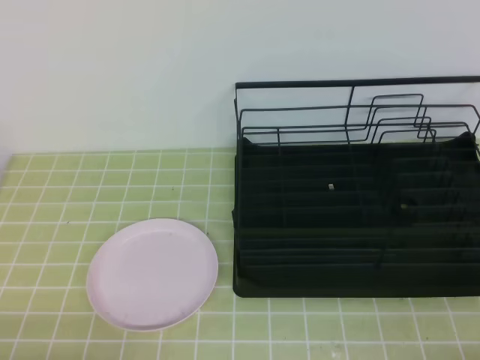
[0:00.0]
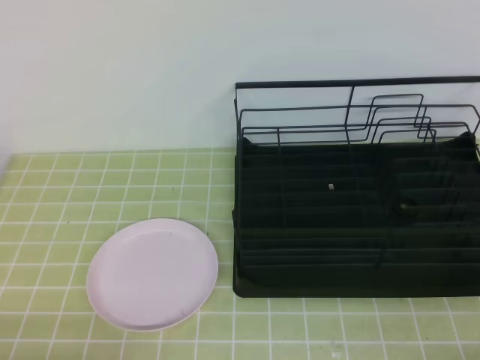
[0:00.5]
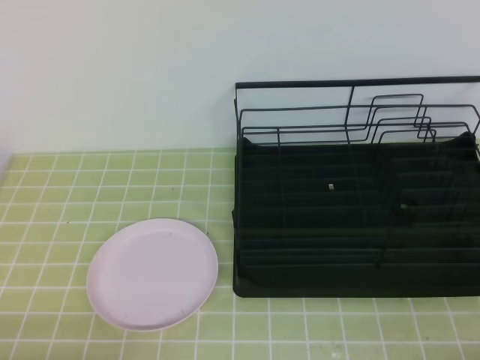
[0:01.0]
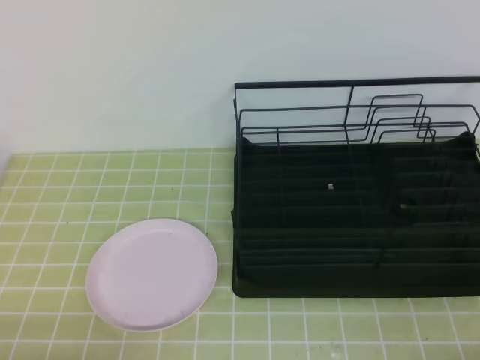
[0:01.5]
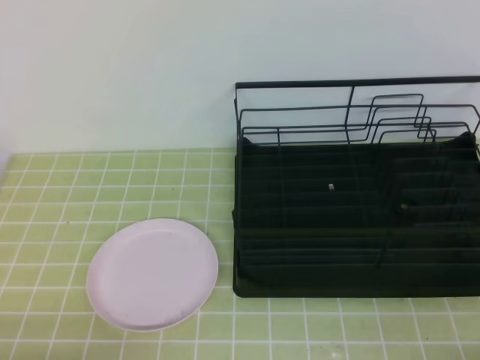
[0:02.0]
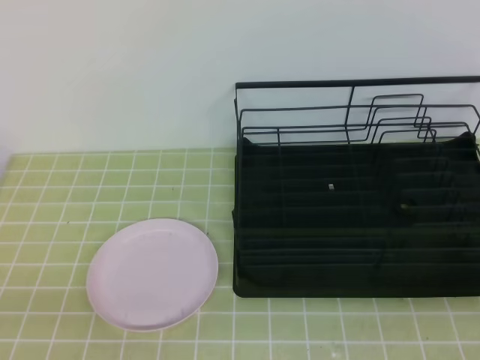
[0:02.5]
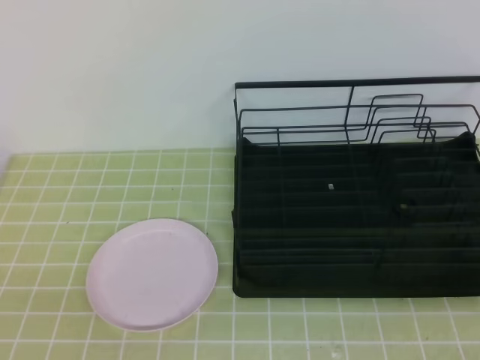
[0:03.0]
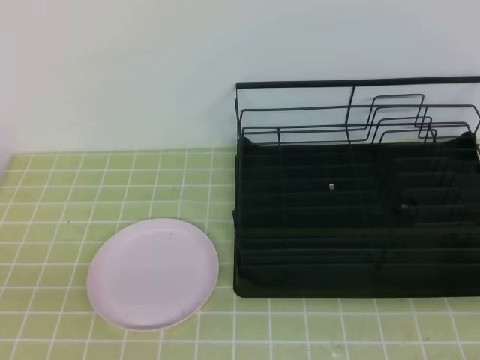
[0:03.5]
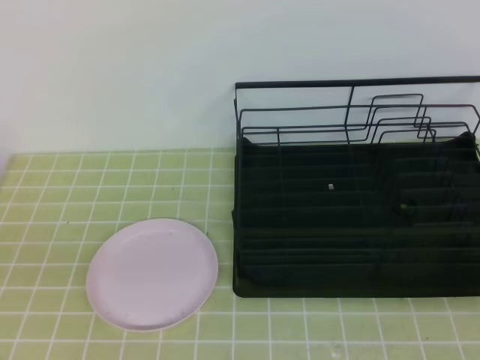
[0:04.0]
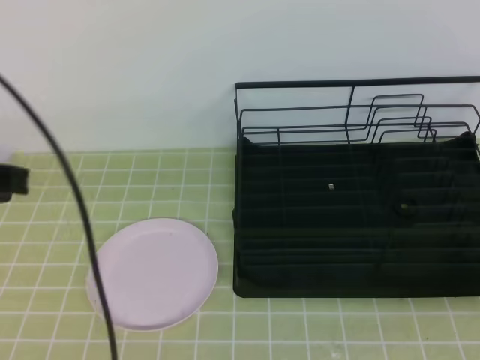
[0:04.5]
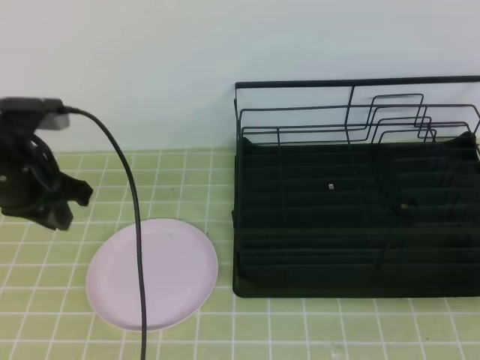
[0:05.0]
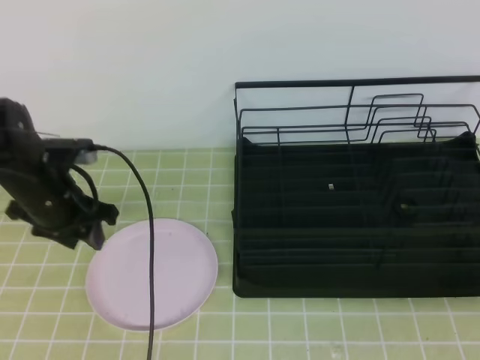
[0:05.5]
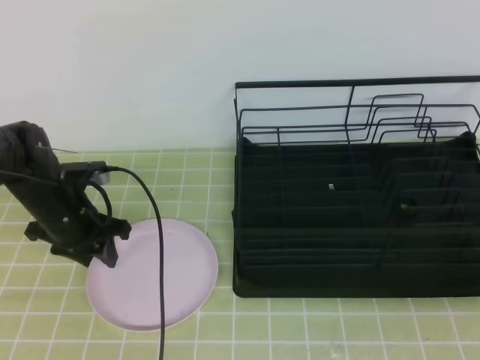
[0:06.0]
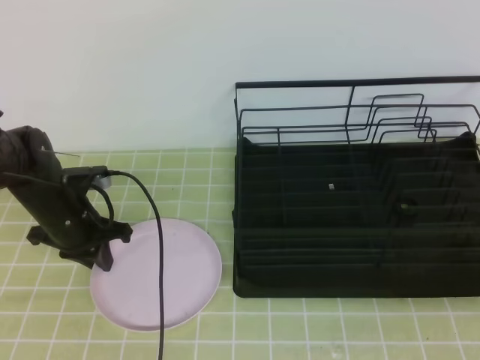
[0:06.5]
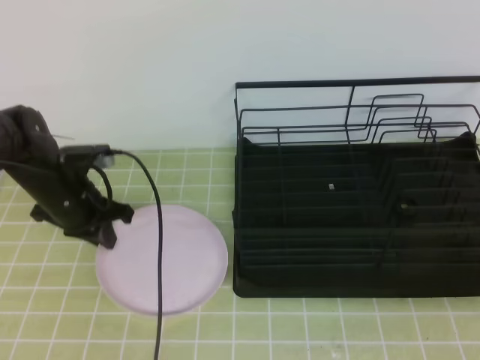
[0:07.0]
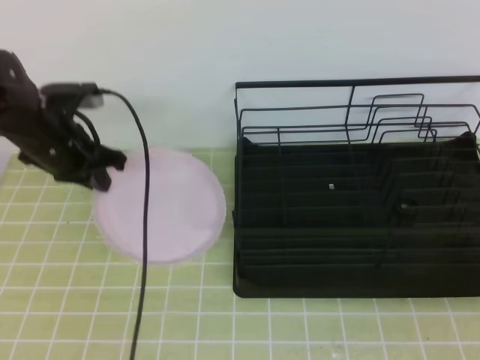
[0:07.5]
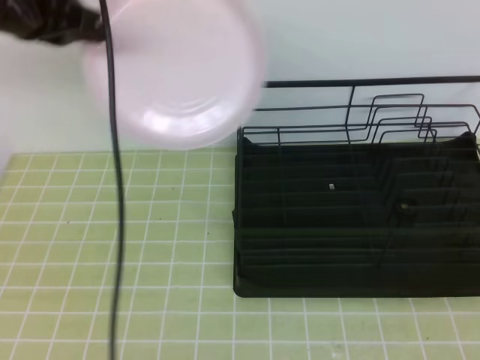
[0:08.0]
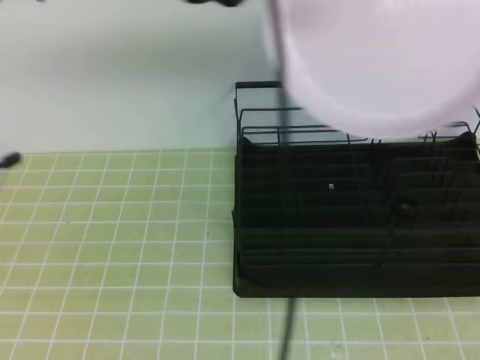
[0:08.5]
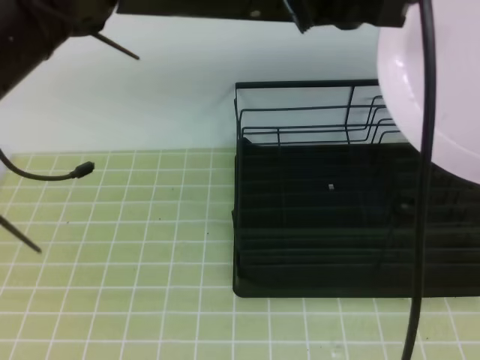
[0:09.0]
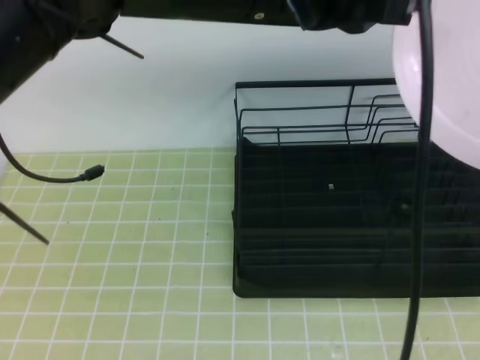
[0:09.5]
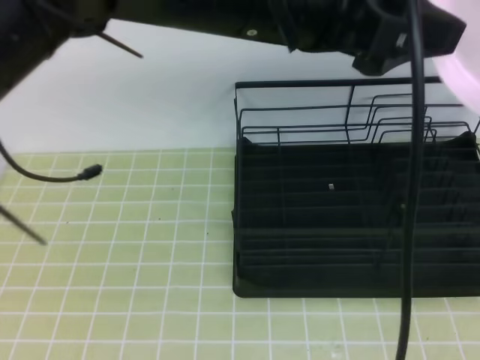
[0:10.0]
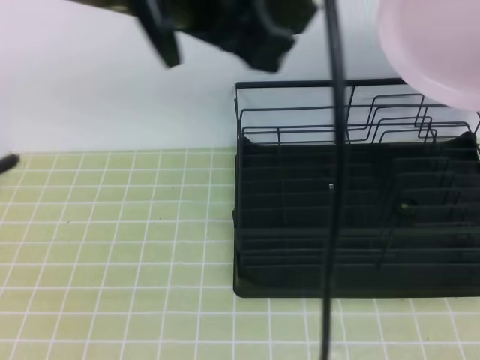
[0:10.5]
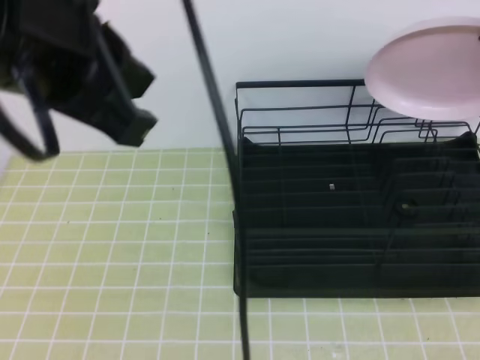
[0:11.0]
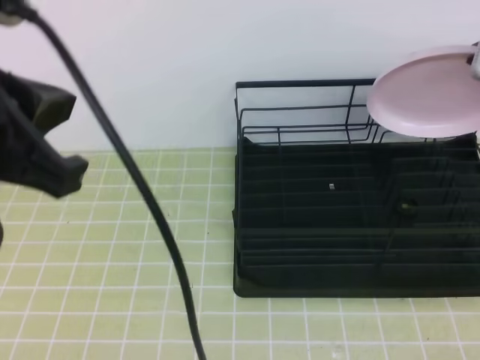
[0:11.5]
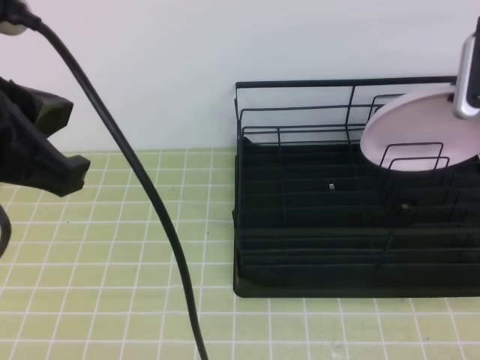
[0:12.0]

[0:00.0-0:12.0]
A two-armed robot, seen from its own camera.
0:04.0 to 0:06.0: The left gripper goes approximately 35 cm forward and downward, and opens up.
0:06.0 to 0:08.0: The left gripper goes approximately 25 cm upward, and closes.
0:08.0 to 0:10.0: The right gripper goes about 10 cm upward, and opens, then closes once more; the left gripper heads to the right and backward, covering some 20 cm, and opens.
0:10.0 to 0:12.0: The left gripper goes about 20 cm to the left and backward, and closes its fingers, while the right gripper moves forward, about 25 cm.

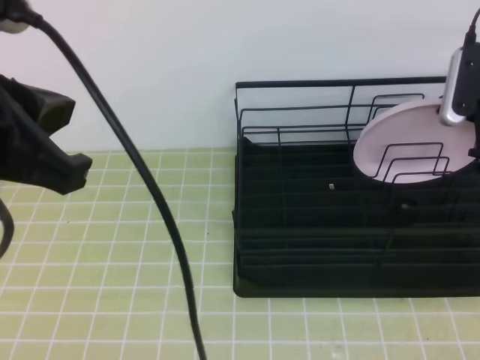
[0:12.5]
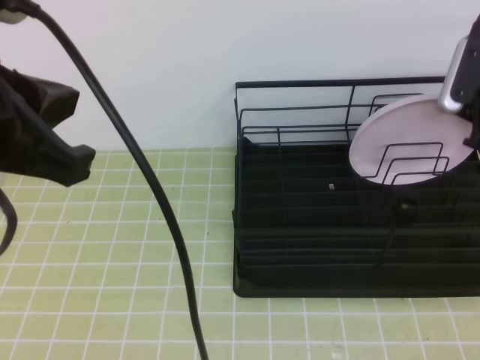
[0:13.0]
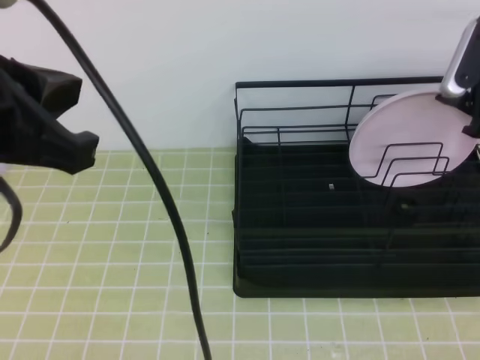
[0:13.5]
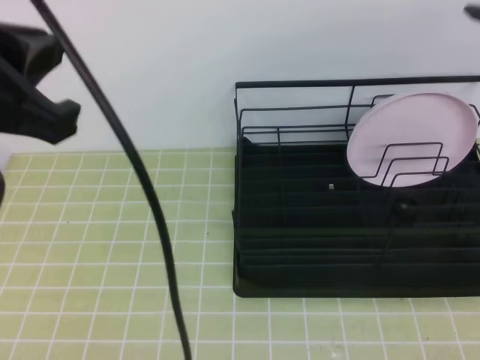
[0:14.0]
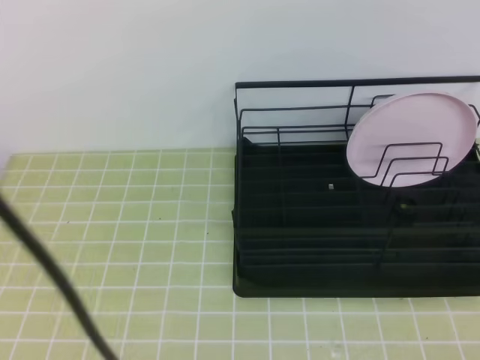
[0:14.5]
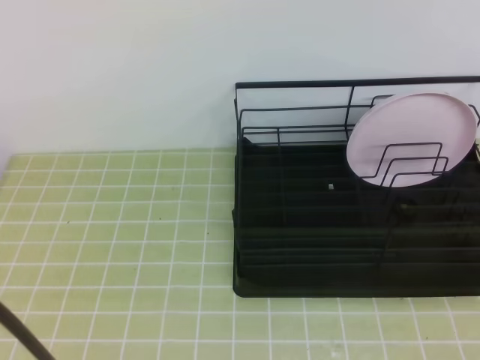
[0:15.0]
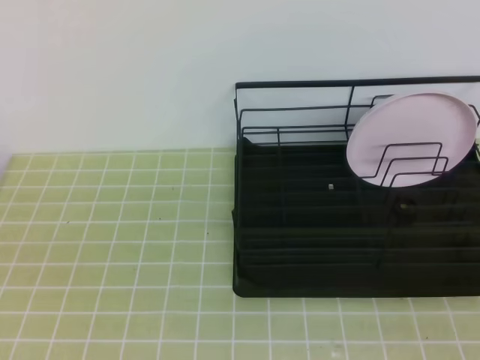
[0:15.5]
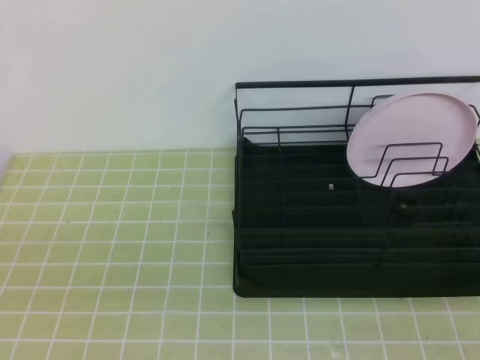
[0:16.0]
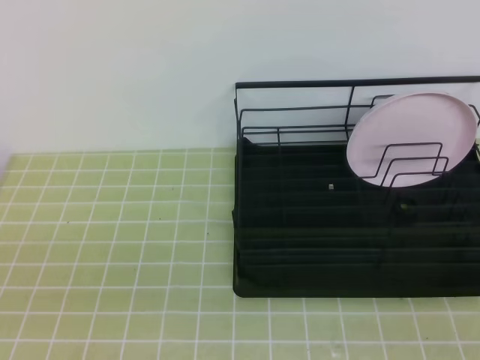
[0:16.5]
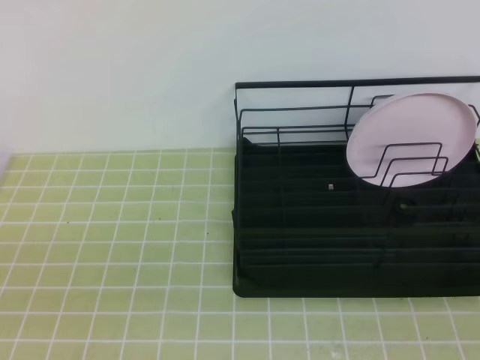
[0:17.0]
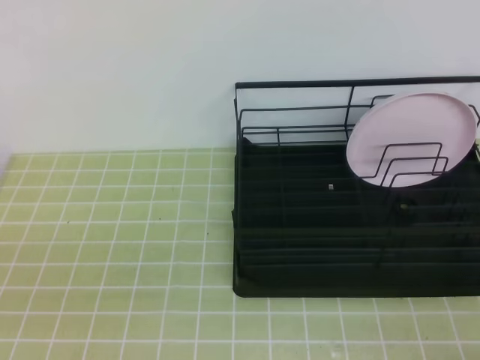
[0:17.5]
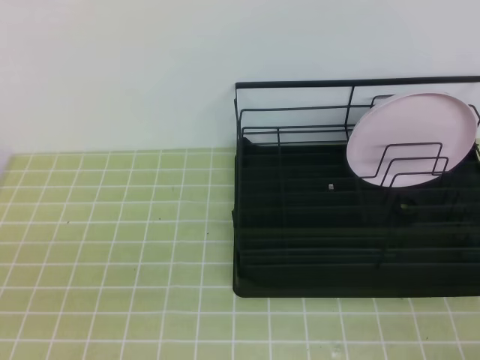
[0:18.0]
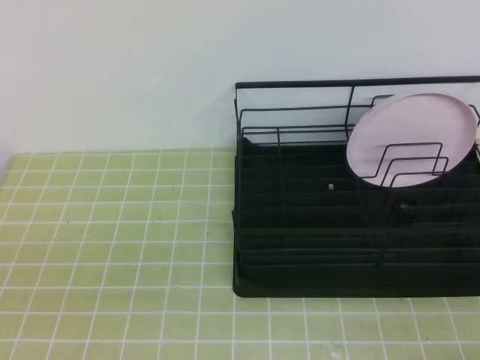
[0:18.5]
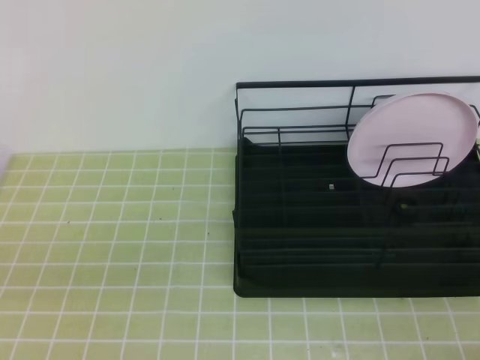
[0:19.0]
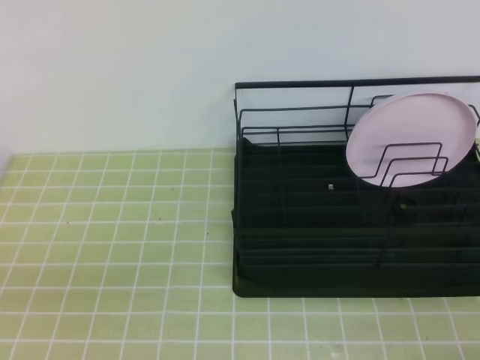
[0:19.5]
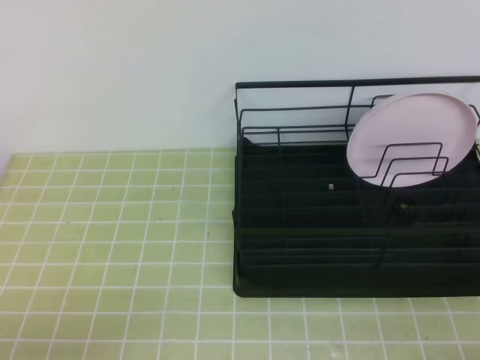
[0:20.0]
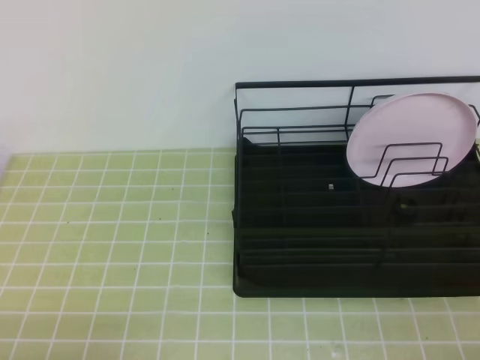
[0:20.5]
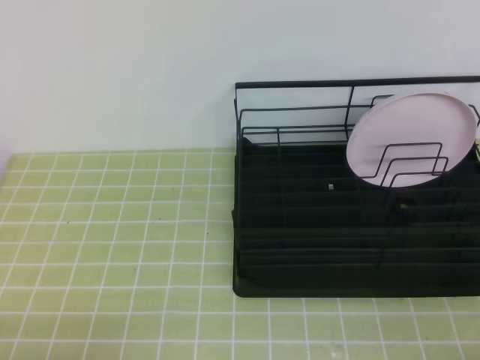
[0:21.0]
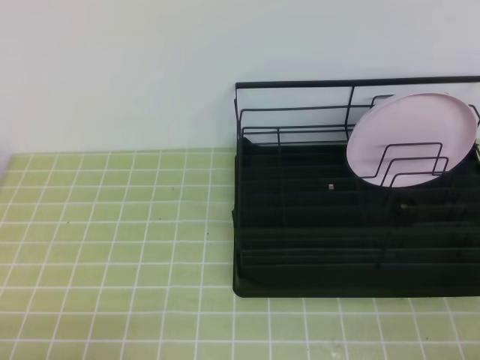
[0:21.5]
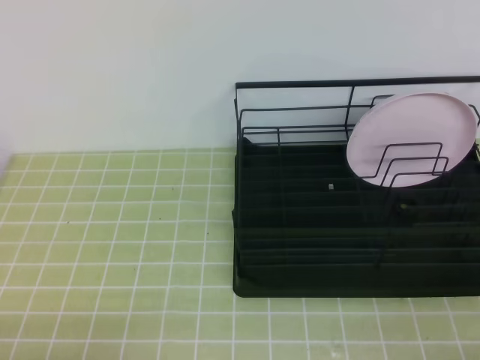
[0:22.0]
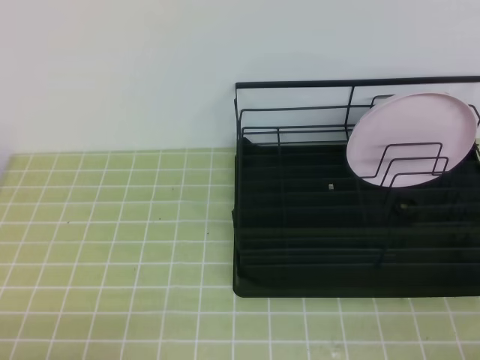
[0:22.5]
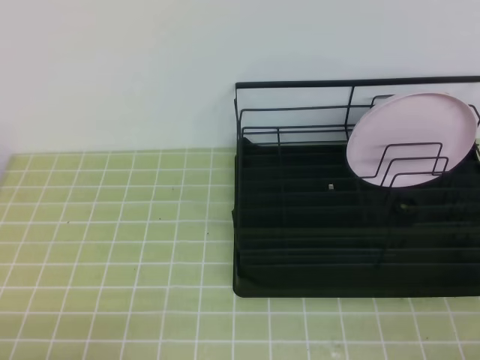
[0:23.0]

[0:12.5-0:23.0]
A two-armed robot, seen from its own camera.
0:12.5 to 0:14.5: The left gripper moves approximately 5 cm, and opens its fingers, while the right gripper goes approximately 30 cm upward and backward, and opens up.
0:14.5 to 0:16.5: The left gripper heads downward, covering about 20 cm, and closes up. The right gripper moves downward and backward, about 30 cm, and closes its fingers.
0:21.0 to 0:23.0: The two grippers keep their place.
